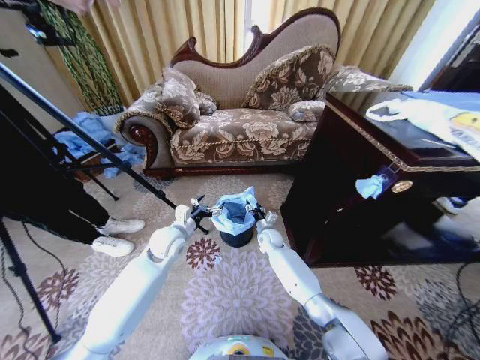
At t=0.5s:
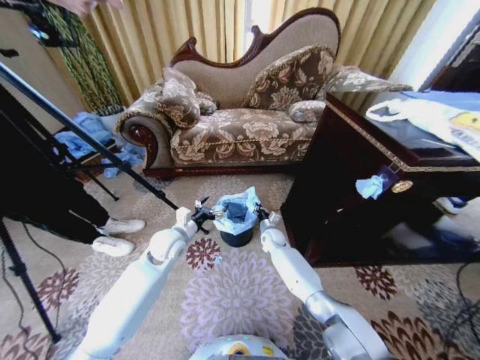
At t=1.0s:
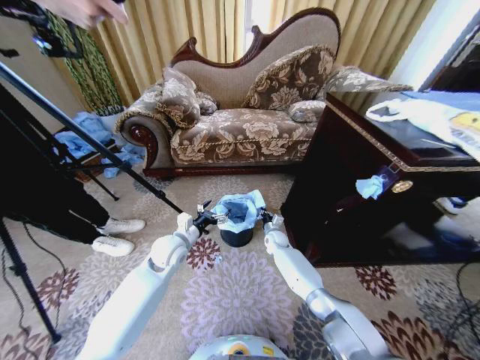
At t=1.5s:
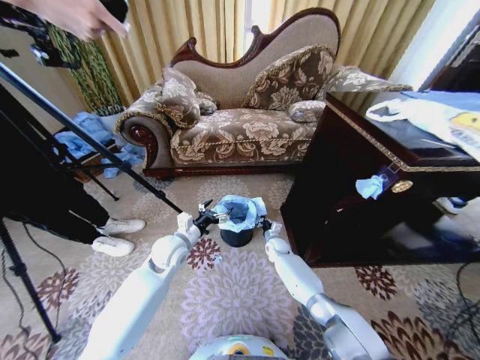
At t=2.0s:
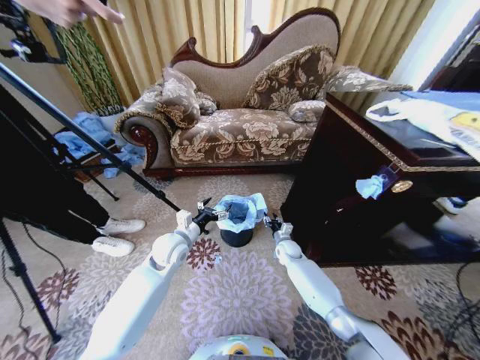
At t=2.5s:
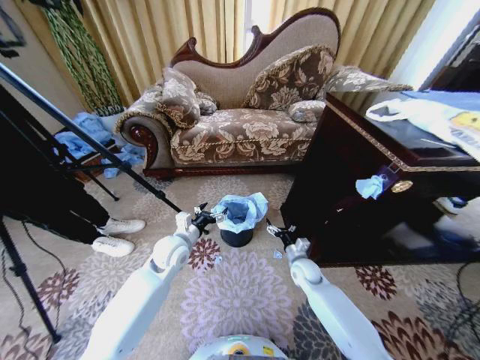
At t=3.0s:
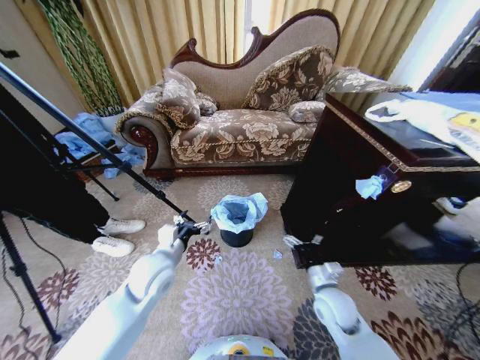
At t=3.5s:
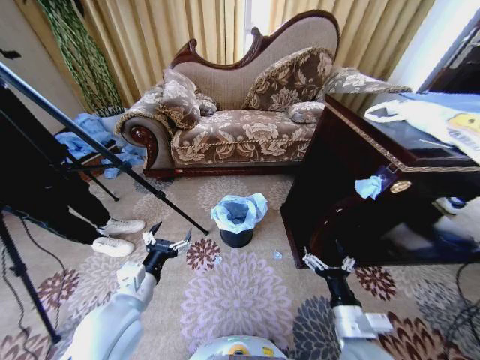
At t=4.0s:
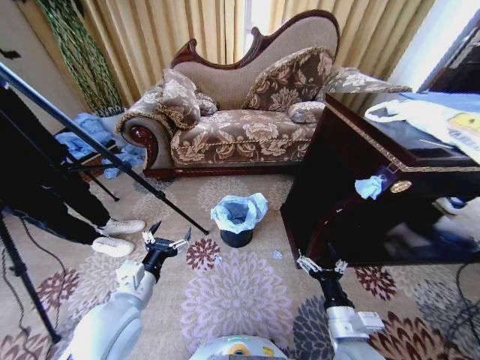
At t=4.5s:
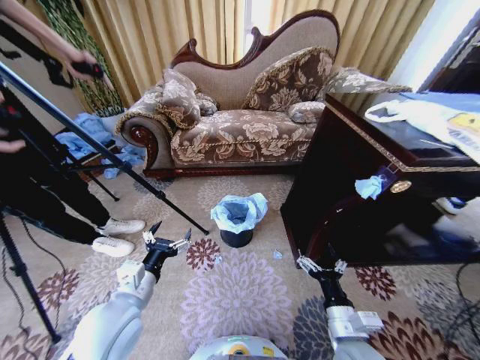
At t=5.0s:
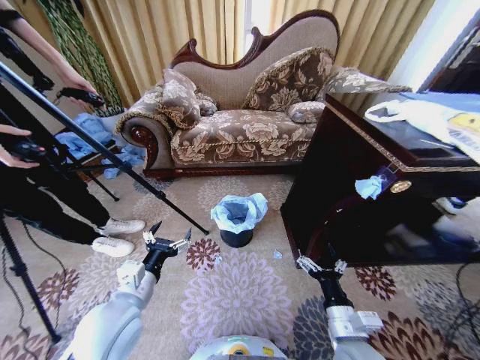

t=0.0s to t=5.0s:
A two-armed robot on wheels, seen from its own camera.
Task of the whole recording: Place a garbage bag over the trash bin.
t=0.0s to t=2.5s: The right gripper moves backward and to the right, about 15 cm, and opens.
t=2.5s to t=5.0s: The right gripper goes approximately 30 cm backward and upward, while the left gripper goes roughly 20 cm backward.

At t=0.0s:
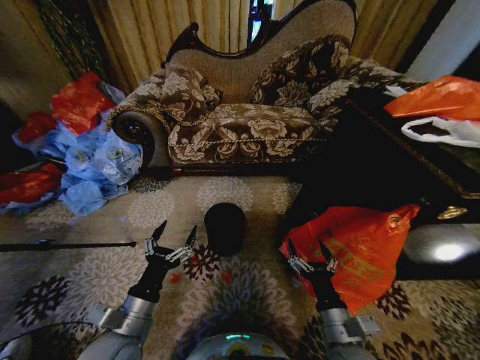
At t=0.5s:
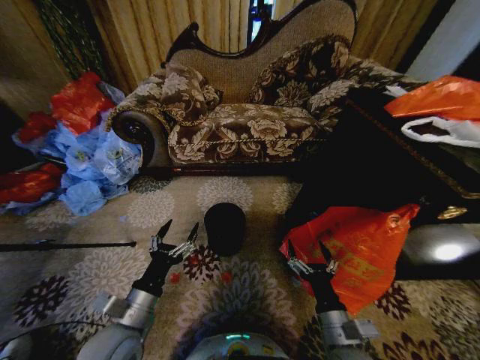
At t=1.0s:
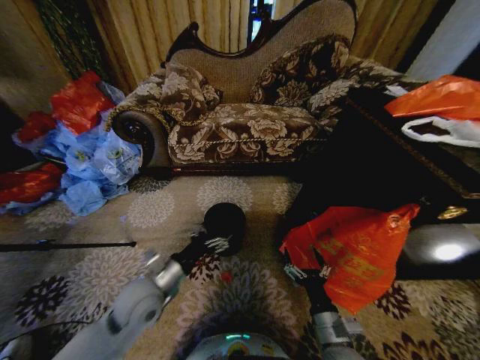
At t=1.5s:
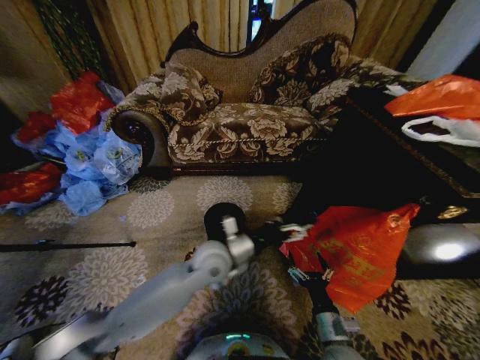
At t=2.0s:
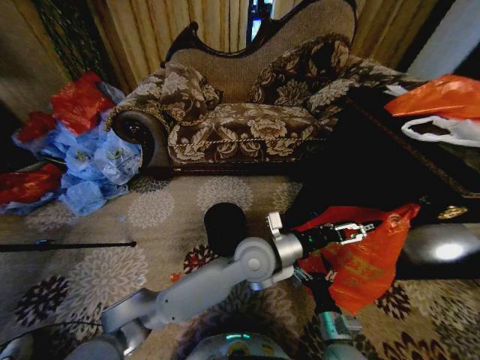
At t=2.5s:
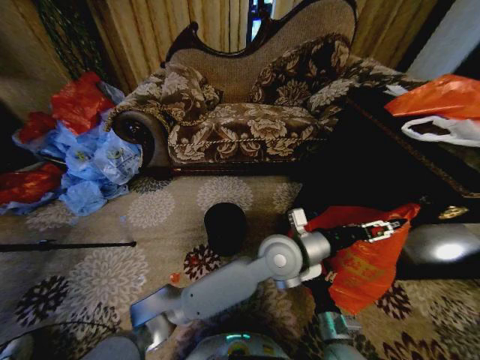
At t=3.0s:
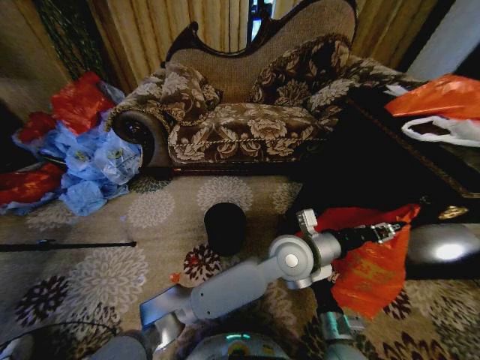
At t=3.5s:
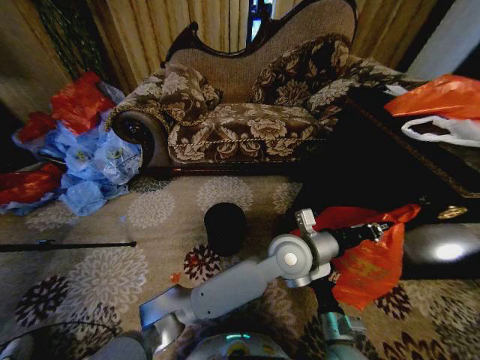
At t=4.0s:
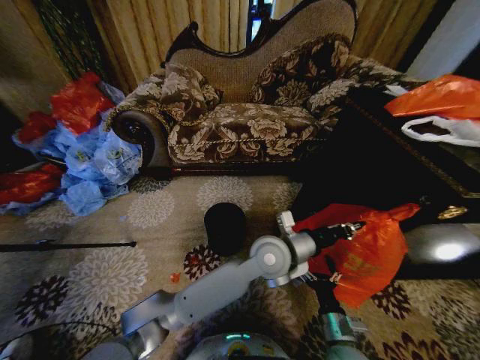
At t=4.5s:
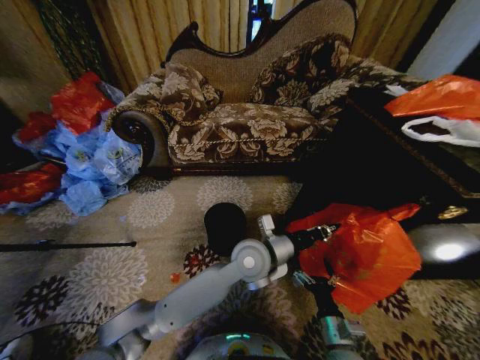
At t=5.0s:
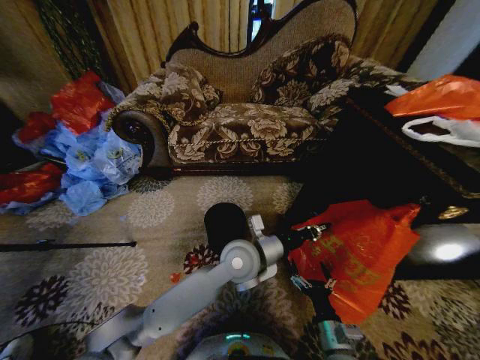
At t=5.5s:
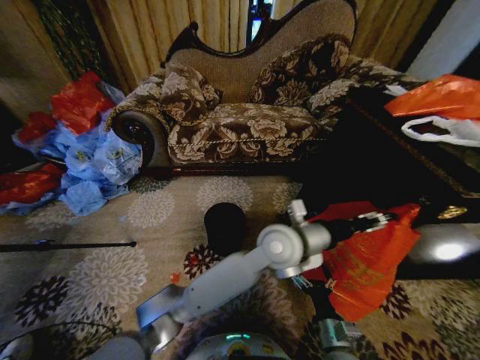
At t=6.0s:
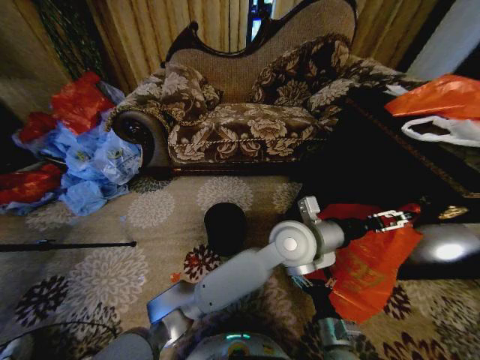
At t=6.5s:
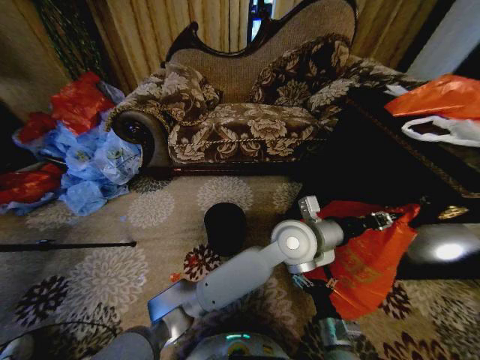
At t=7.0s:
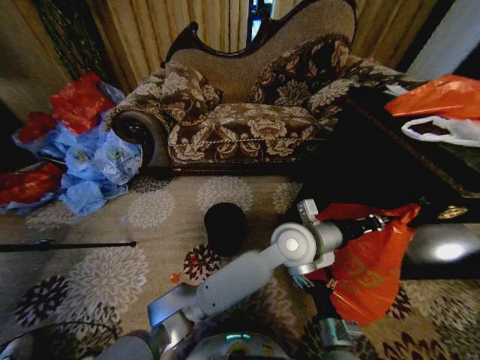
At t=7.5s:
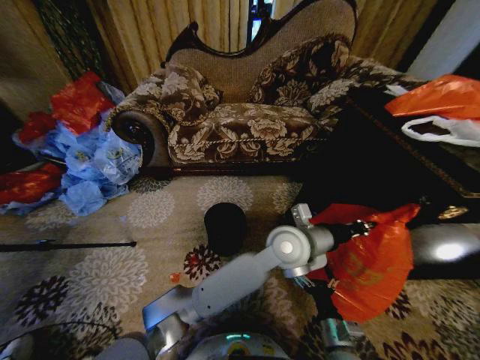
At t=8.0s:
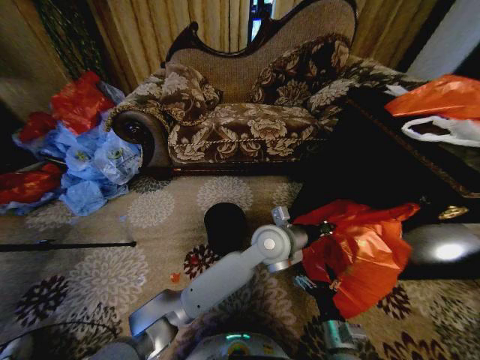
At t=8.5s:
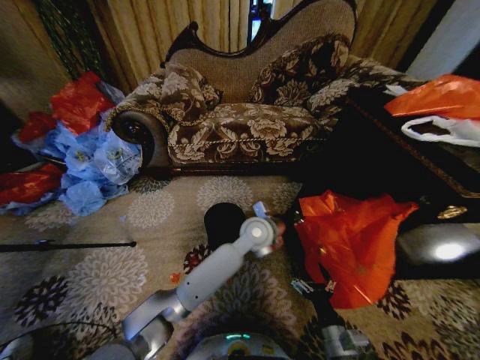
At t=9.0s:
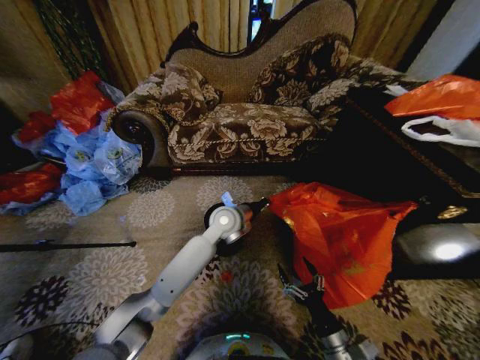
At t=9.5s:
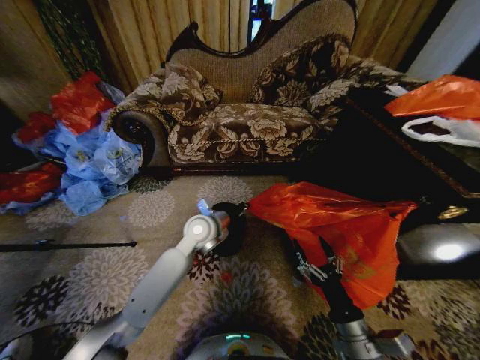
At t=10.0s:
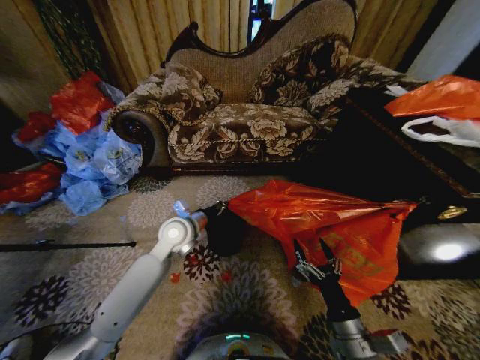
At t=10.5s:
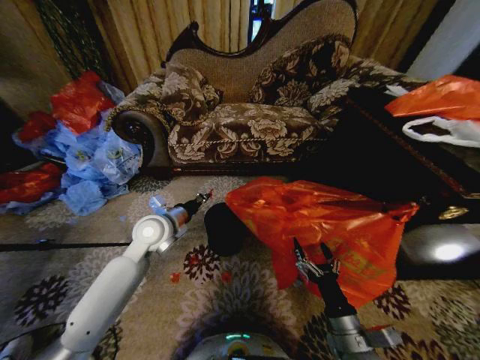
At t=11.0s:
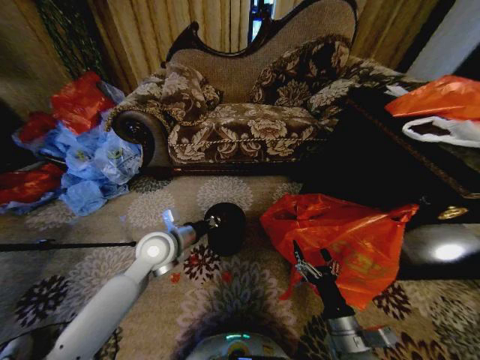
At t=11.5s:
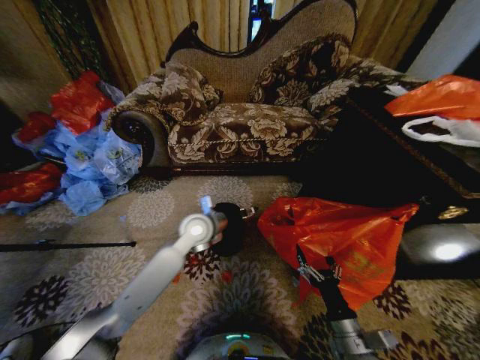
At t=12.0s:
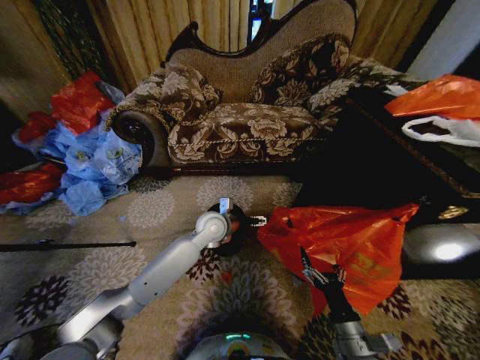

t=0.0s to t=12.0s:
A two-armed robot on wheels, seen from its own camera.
Task of the whole recording: Place a garbage bag over the trash bin.
t=2.0s to t=4.0s: The left gripper closes up.
t=4.0s to t=6.0s: The left gripper travels upward by roughly 5 cm, and opens its fingers.
t=6.0s to t=8.0s: The left gripper goes roughly 5 cm downward, and closes.
t=8.0s to t=10.0s: The left gripper moves to the left, roughly 25 cm. The right gripper goes about 10 cm upward.
t=10.0s to t=12.0s: The left gripper moves to the right, about 10 cm, and opens.

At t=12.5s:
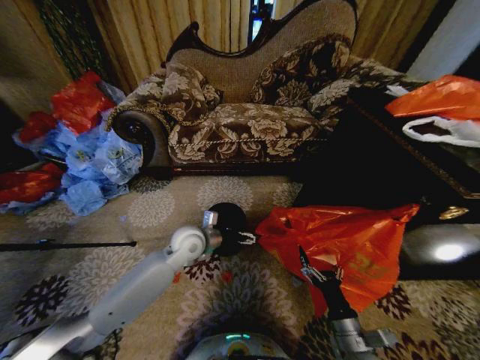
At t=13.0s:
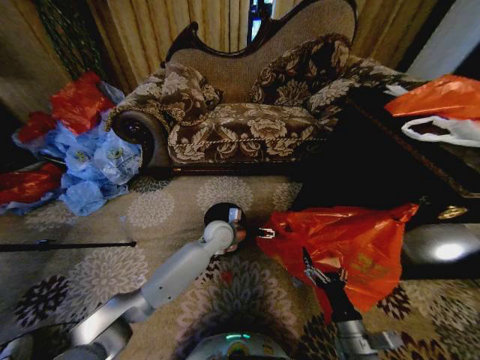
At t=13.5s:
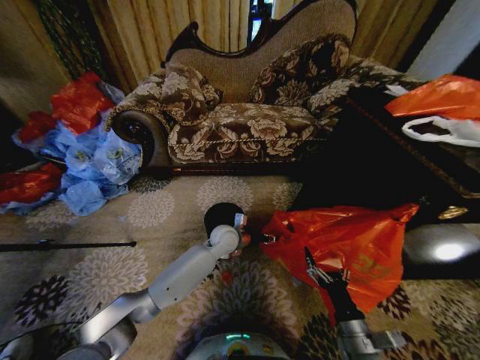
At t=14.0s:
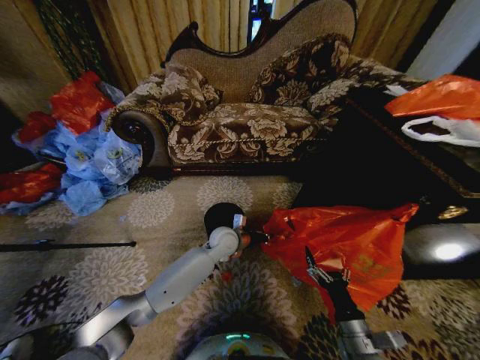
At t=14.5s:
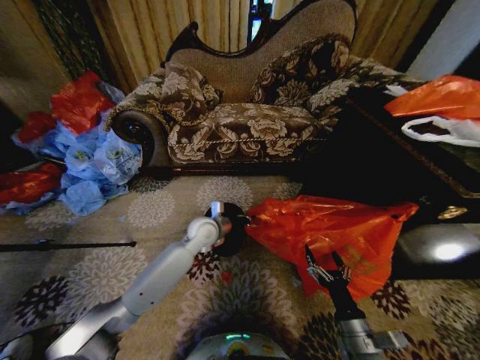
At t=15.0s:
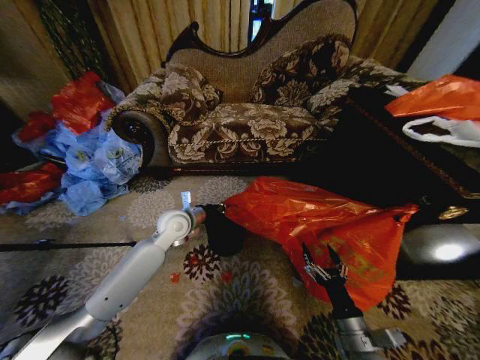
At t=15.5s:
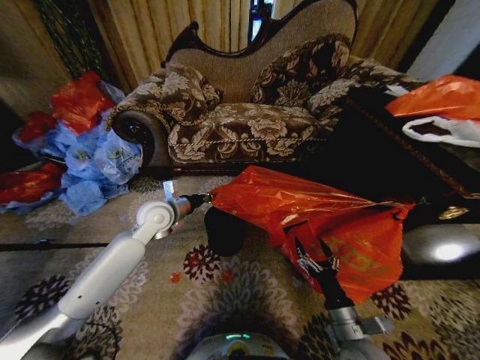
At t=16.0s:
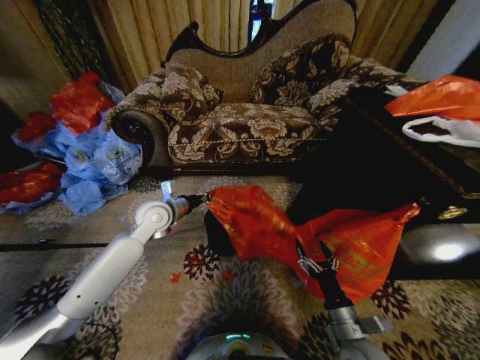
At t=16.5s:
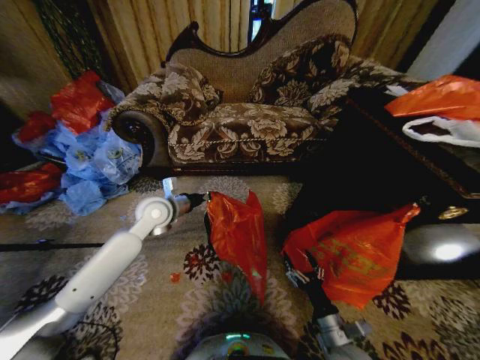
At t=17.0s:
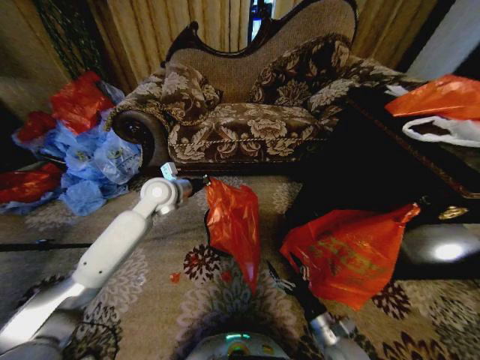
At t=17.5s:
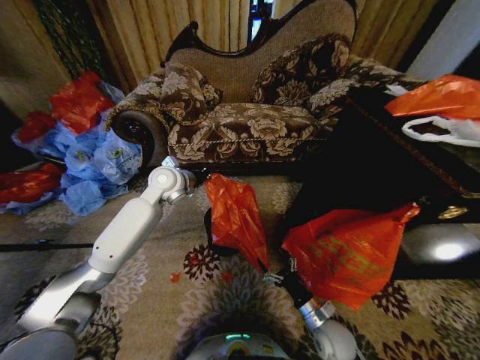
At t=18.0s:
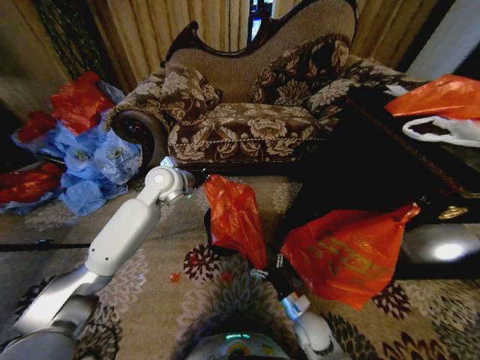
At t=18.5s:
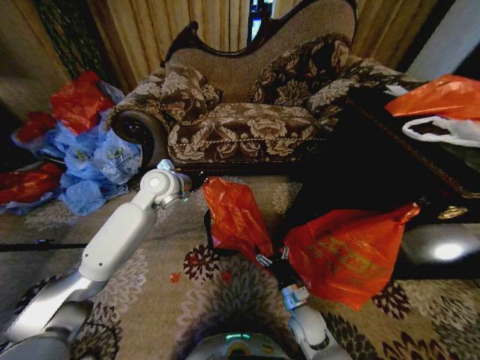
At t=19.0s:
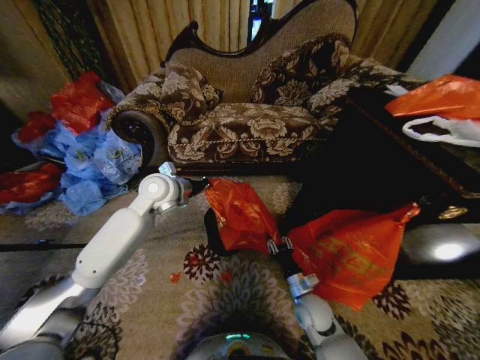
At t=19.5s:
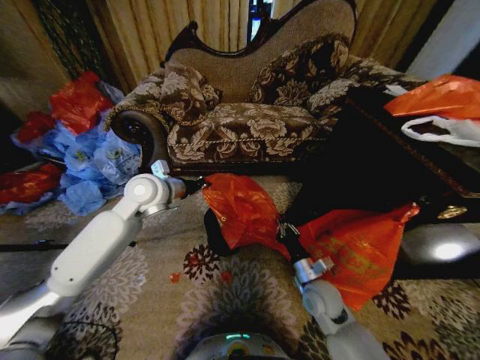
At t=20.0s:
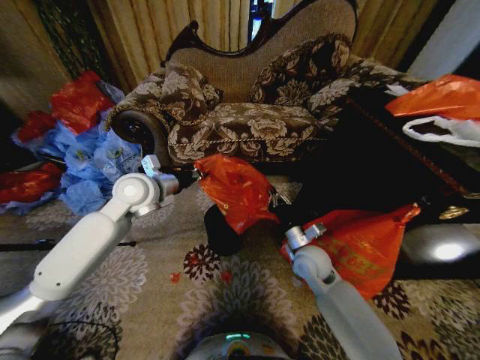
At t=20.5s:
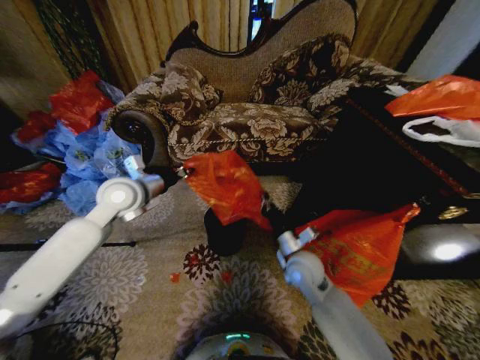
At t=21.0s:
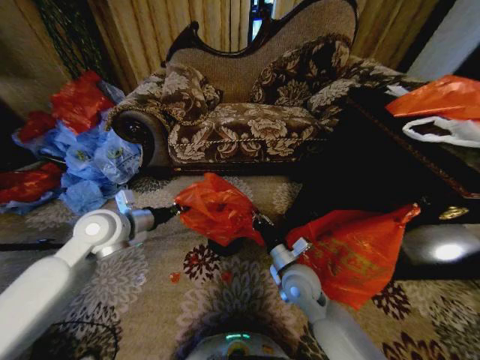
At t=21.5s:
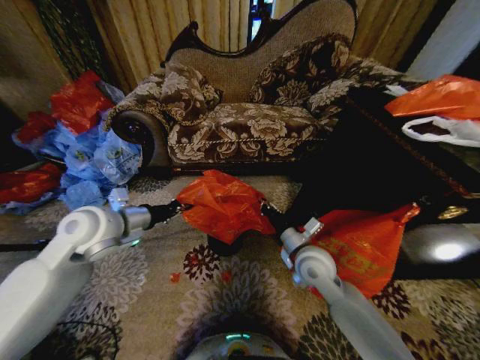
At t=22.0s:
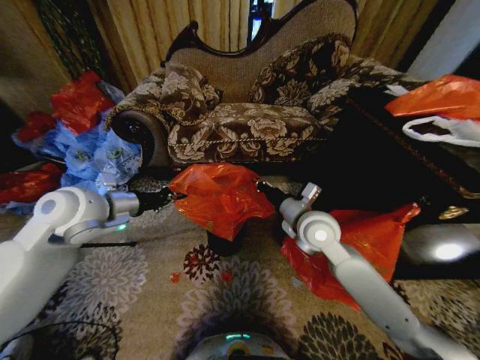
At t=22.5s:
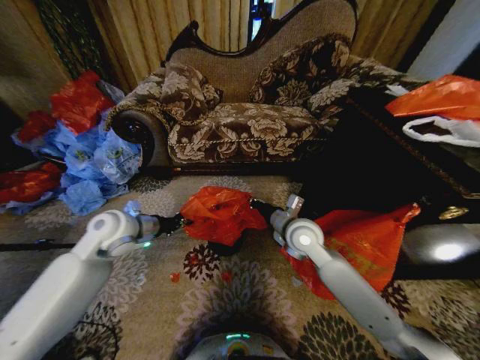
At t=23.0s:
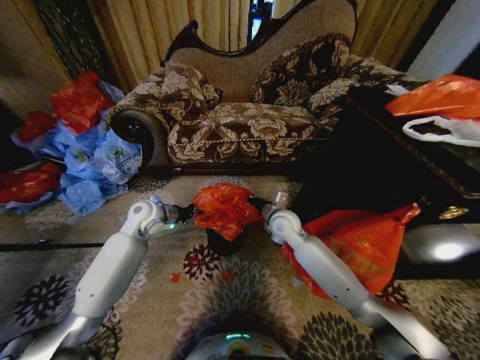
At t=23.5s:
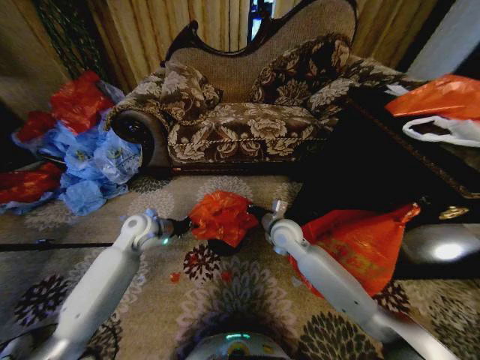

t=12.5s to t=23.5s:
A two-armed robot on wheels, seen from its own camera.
Task of the whole recording: Place a garbage bag over the trash bin.
t=12.5s to t=14.5s: The left gripper reaches approximately 10 cm to the right, then returns, and closes up.
t=14.5s to t=16.0s: The left gripper moves to the left and upward, approximately 15 cm.
t=16.0s to t=18.0s: The right gripper is displaced downward, forward and to the left by approximately 15 cm. The left gripper moves upward and forward, some 10 cm.
t=18.0s to t=20.0s: The right gripper travels upward and forward by roughly 20 cm, and closes up; the left gripper goes about 5 cm backward.
t=20.0s to t=21.5s: The left gripper moves backward, about 10 cm. The right gripper shifts by roughly 5 cm.
t=21.5s to t=23.5s: The right gripper heads forward, covering roughly 10 cm. The left gripper moves downward and forward, some 15 cm.
